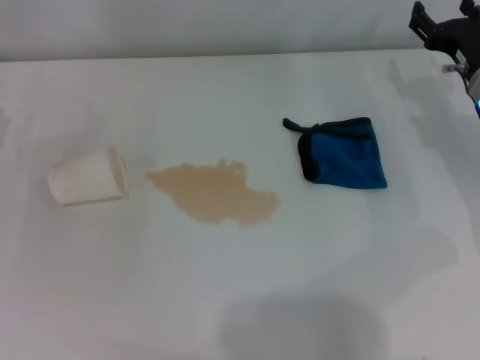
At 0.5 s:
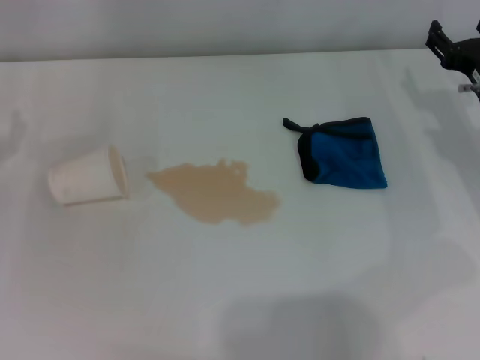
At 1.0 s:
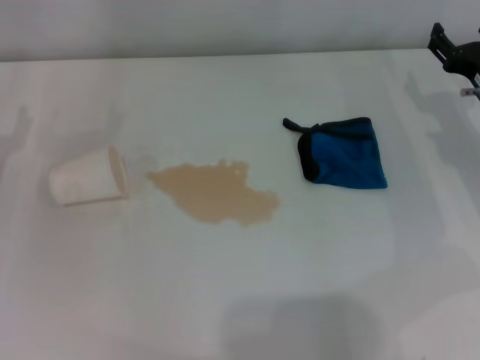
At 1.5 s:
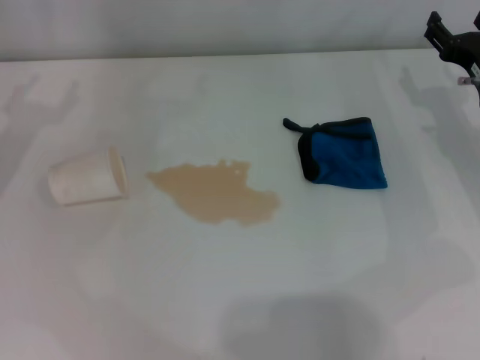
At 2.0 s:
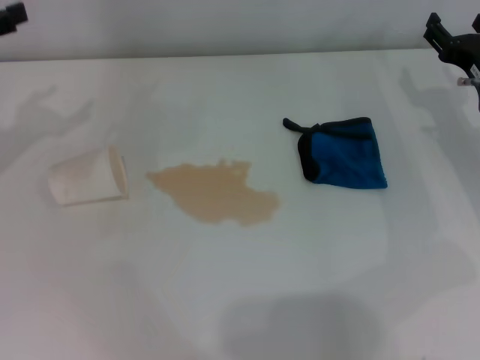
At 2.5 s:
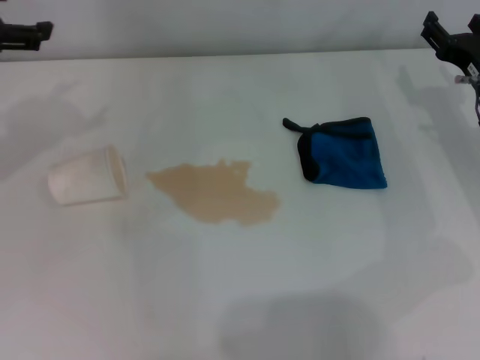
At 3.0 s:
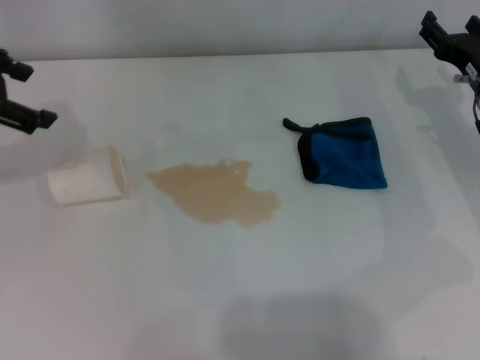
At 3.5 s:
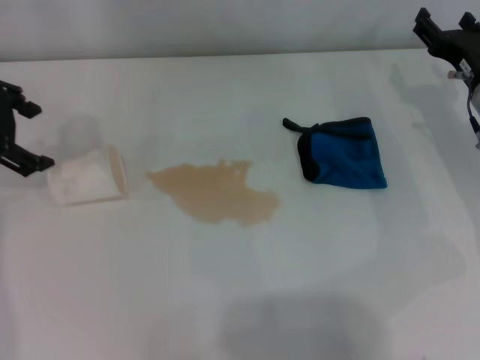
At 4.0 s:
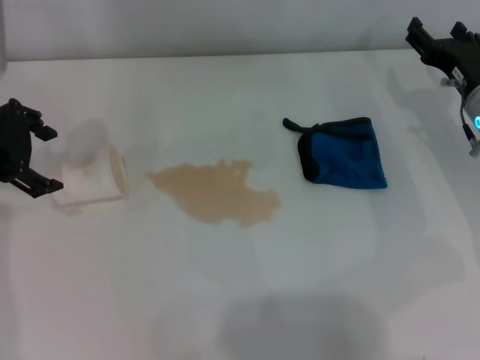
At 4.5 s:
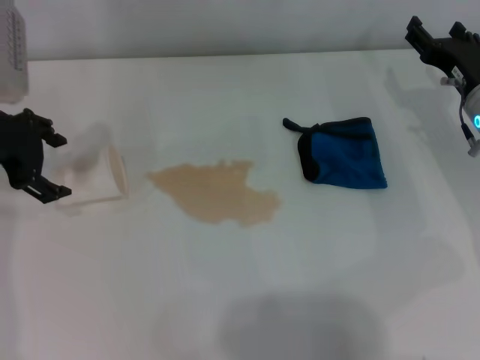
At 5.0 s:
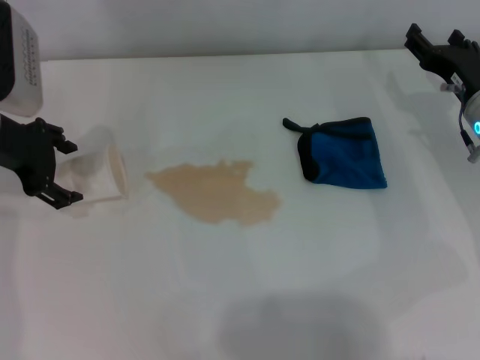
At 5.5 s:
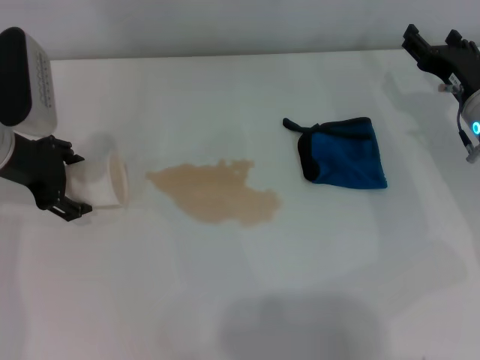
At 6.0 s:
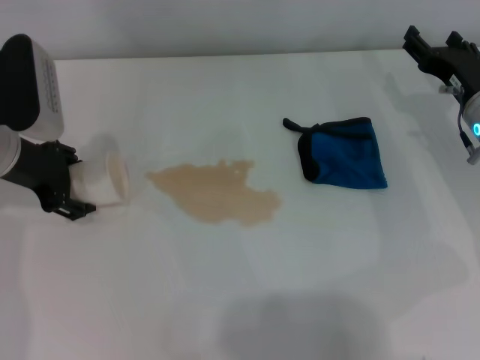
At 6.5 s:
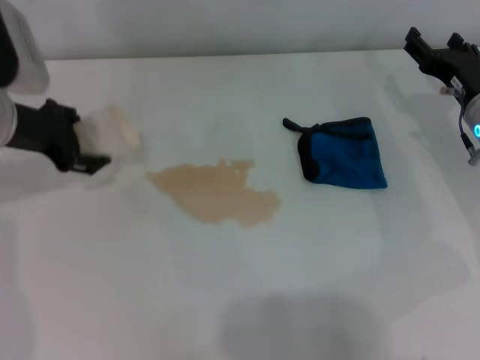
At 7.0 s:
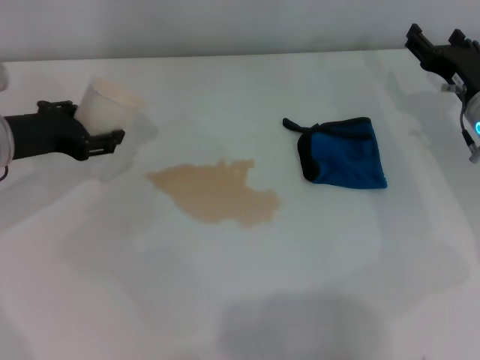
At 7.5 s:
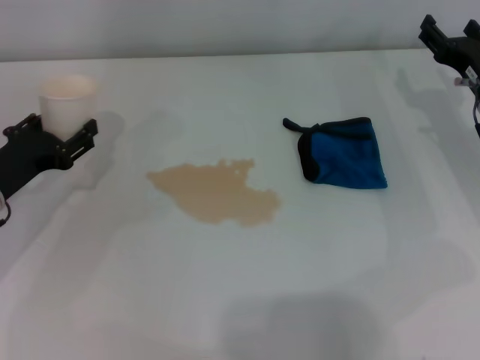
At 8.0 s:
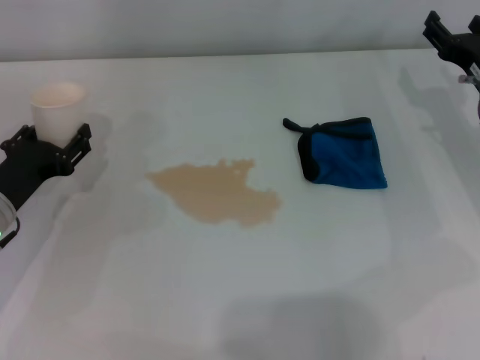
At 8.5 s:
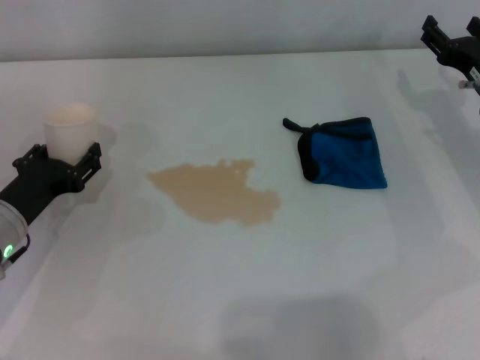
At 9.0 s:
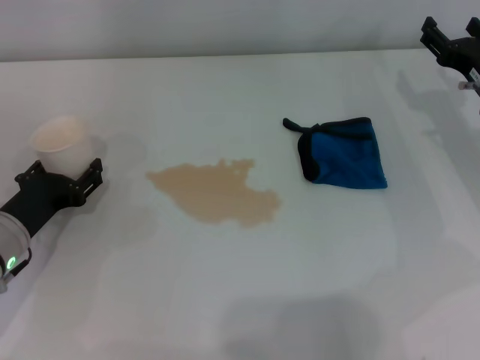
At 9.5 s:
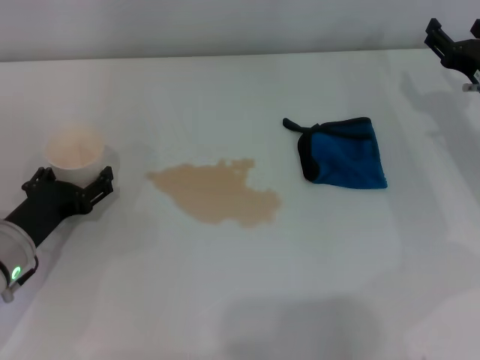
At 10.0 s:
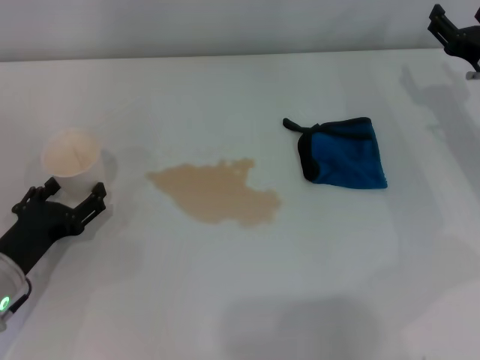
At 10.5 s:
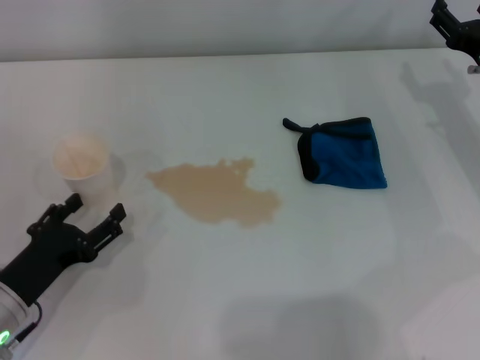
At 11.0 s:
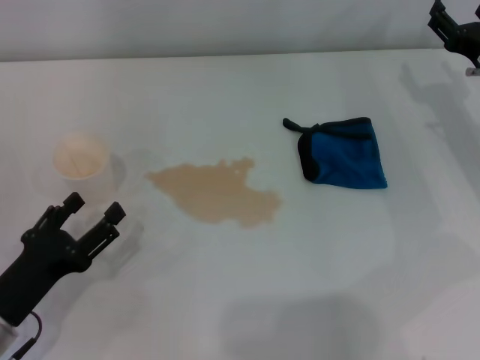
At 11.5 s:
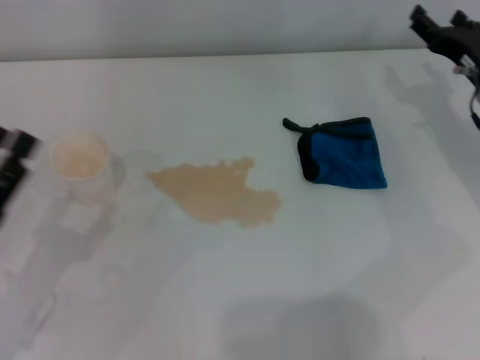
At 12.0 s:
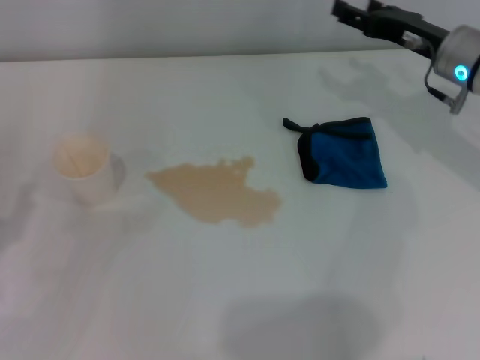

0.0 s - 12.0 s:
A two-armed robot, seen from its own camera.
Step, 0.0 s - 5.5 s: Grasp the paper cup with the left gripper.
Step, 6.0 s - 9.5 s: Stand the paper cup upright with the left gripper.
2.0 s - 4.0 s: The left gripper shifts roughly 10 cm to the right.
4.0 s - 6.0 s: The left gripper moves downward, roughly 10 cm.
6.0 s - 8.0 s: The left gripper heads downward and backward, covering about 10 cm, and closes its fingers.
8.0 s - 10.0 s: The left gripper shifts roughly 5 cm backward, and opens up.
10.0 s - 12.0 s: The right gripper ends up about 10 cm from where it was. The left gripper heads backward, upward and to the left, covering about 10 cm.

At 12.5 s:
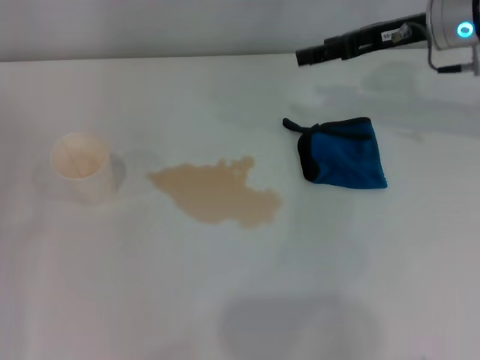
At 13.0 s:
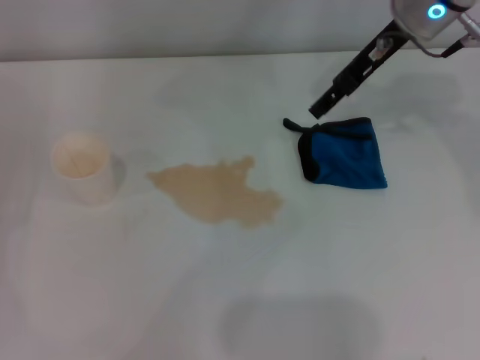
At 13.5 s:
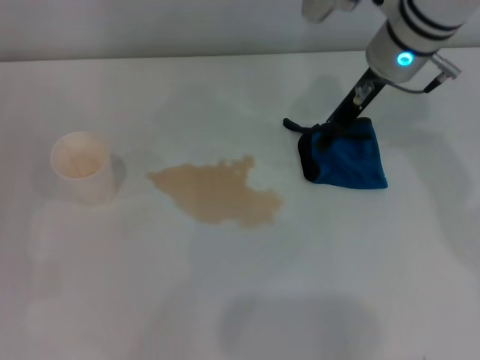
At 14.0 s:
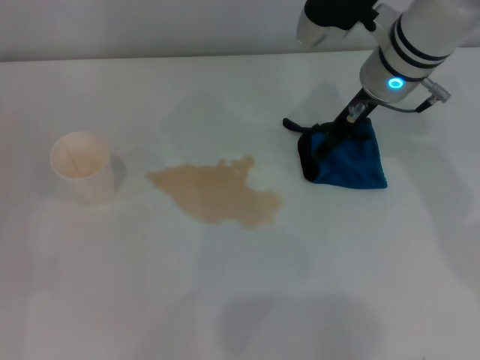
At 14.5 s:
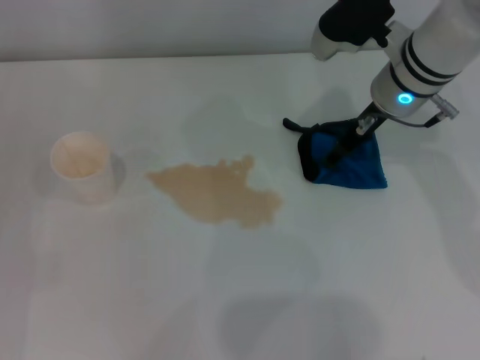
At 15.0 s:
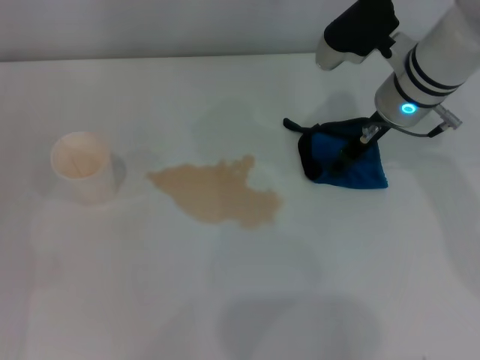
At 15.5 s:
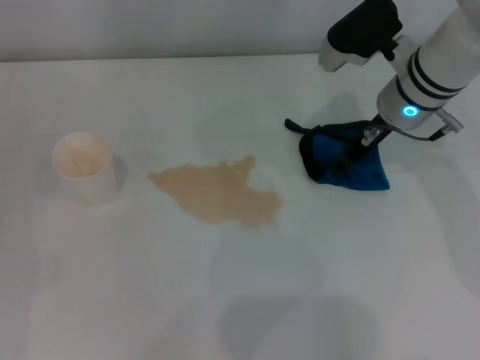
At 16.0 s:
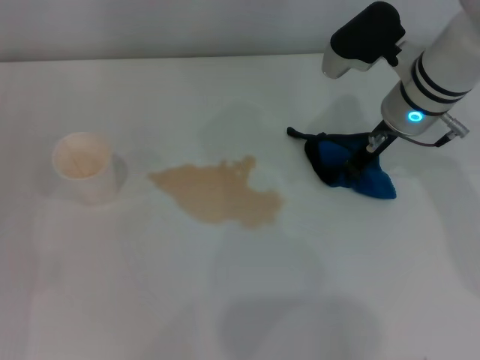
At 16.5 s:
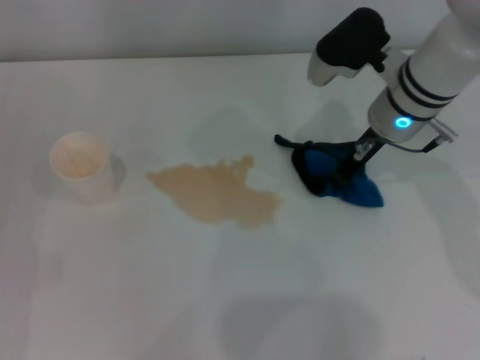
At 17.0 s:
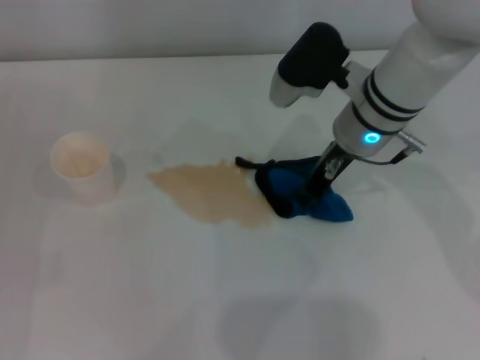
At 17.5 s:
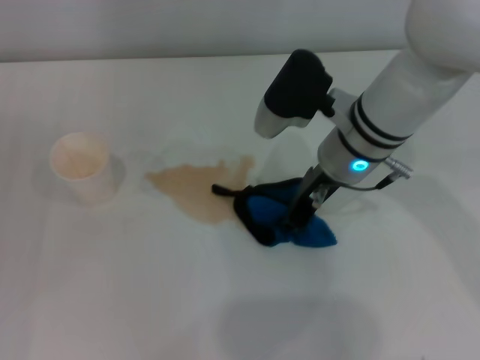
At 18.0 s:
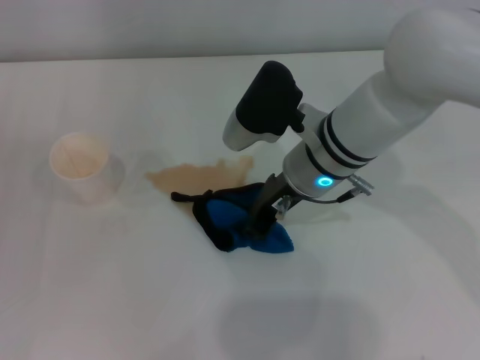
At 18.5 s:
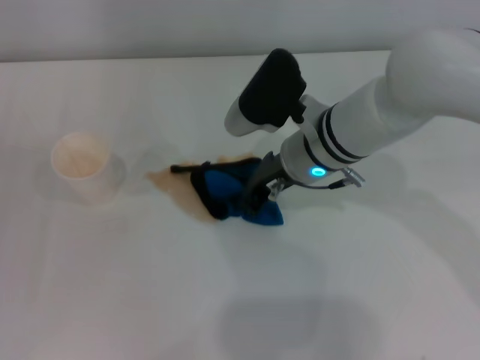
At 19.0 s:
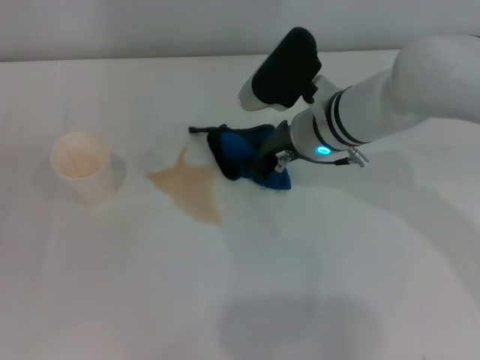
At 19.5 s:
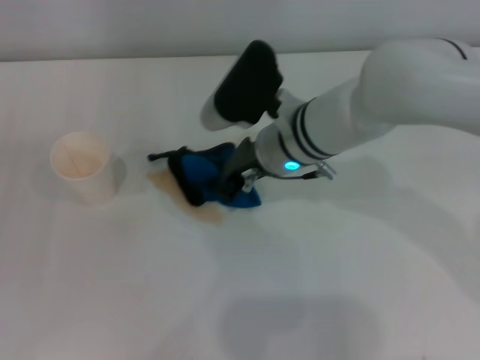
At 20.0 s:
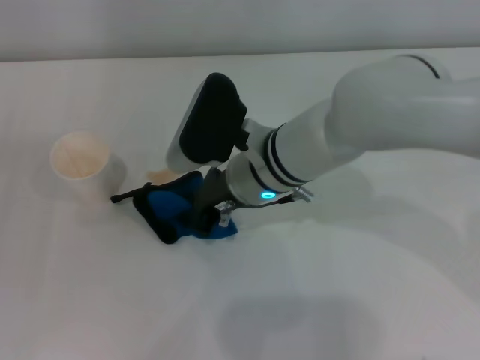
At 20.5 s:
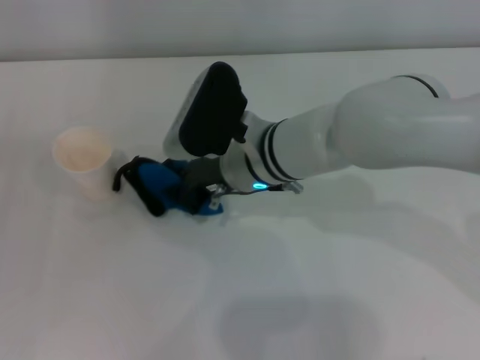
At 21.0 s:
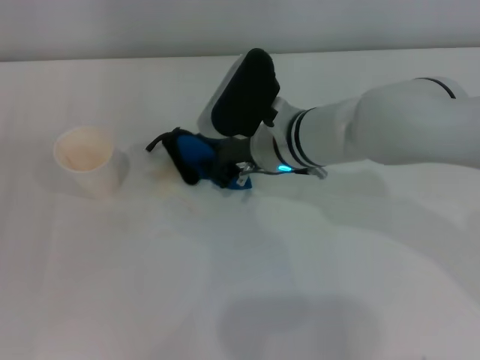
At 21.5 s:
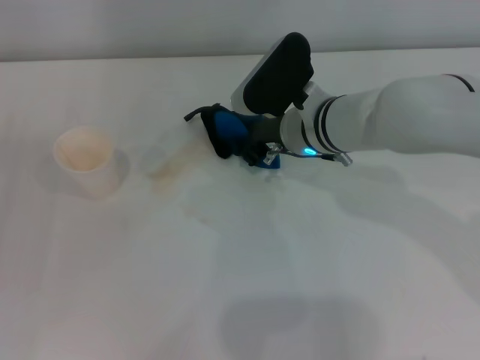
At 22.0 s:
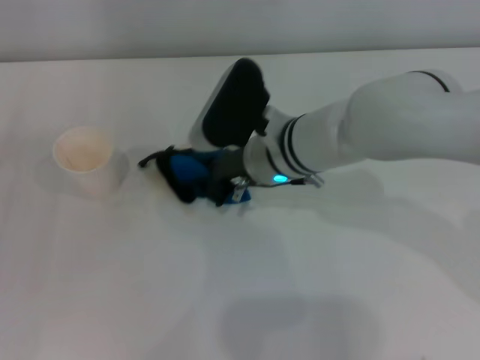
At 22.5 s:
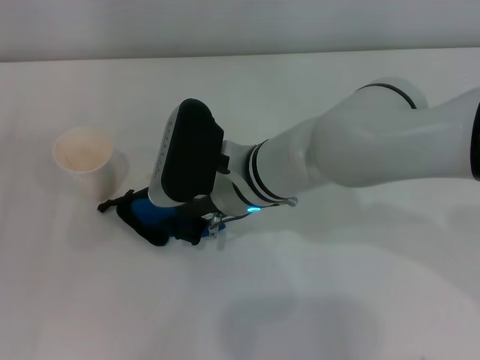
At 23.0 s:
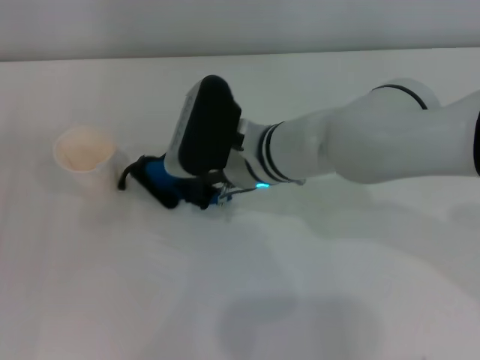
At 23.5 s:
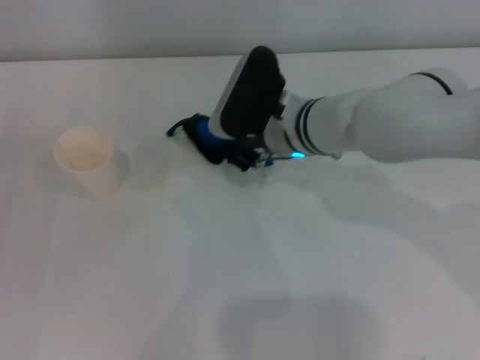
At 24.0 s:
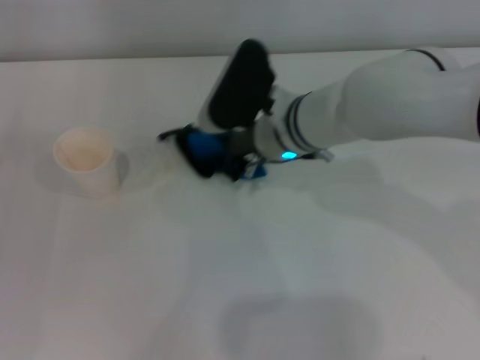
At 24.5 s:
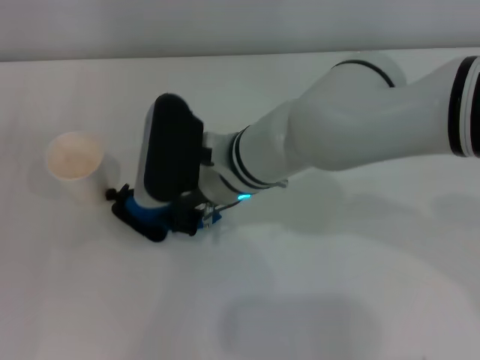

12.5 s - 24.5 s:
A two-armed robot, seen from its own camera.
Step, 12.5 s - 15.0 s: Grasp the rag with the right gripper.
12.5 s - 14.5 s: The right gripper is displaced to the left by roughly 5 cm.
14.5 s - 16.5 s: The right gripper closes up.
16.5 s - 18.5 s: The right gripper travels to the left by roughly 10 cm.
18.5 s - 20.5 s: The right gripper heads to the left, covering approximately 5 cm.
20.5 s - 22.5 s: The right gripper goes to the right and returns, approximately 5 cm each way.
22.5 s - 24.5 s: The right gripper reaches some 5 cm to the right, then returns.

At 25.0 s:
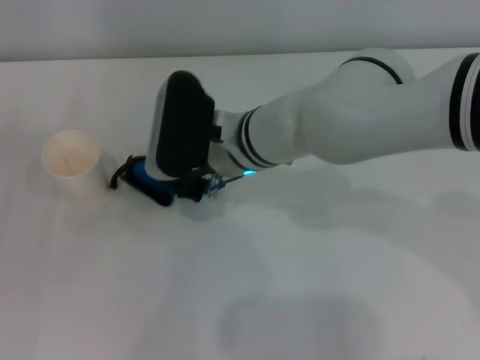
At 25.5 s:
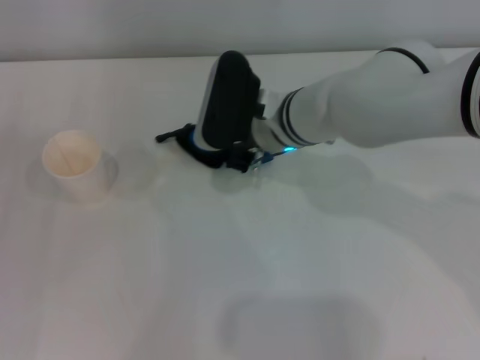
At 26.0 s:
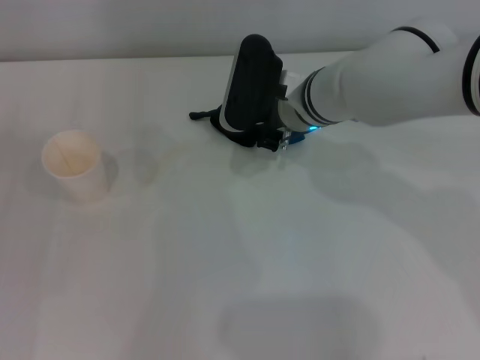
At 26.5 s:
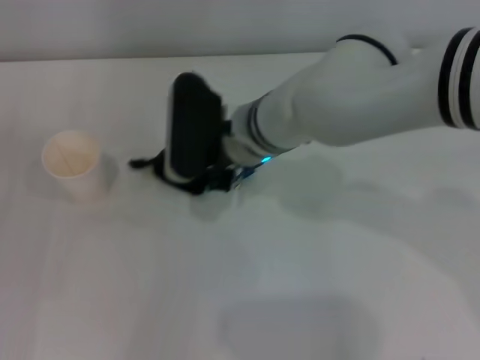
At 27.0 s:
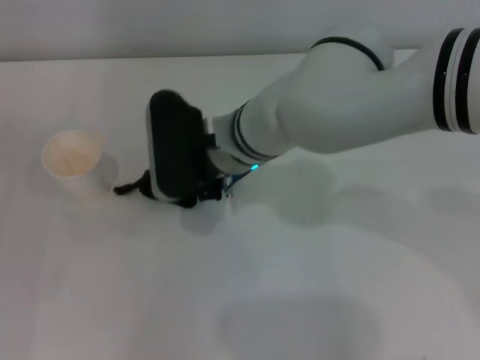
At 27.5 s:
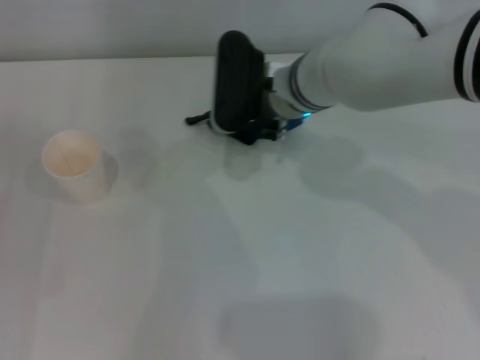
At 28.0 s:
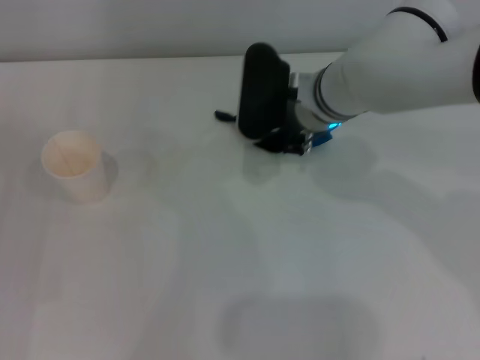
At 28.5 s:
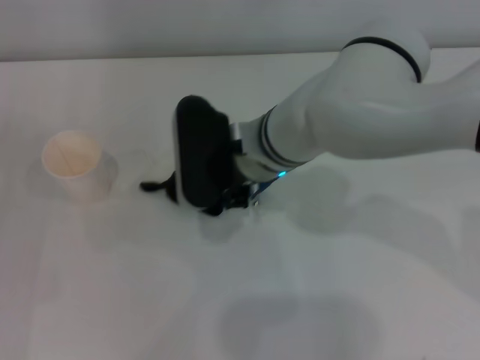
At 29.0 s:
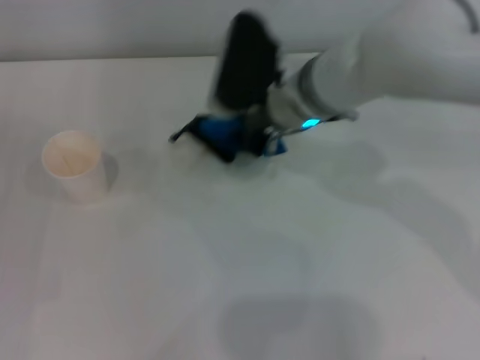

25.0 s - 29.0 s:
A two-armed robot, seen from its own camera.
25.0 s - 27.0 s: The right gripper reaches roughly 10 cm to the right, then returns.
27.0 s - 29.0 s: The right gripper goes left and right, some 10 cm each way, reversing 2 times.
